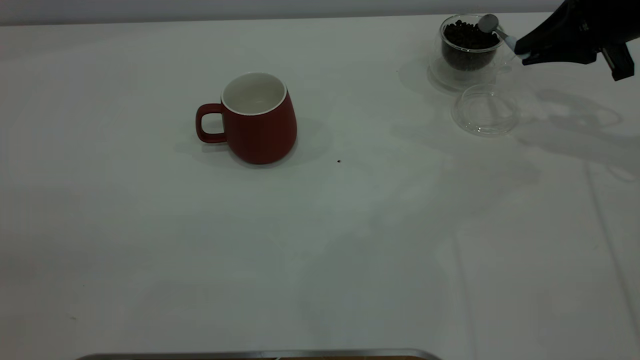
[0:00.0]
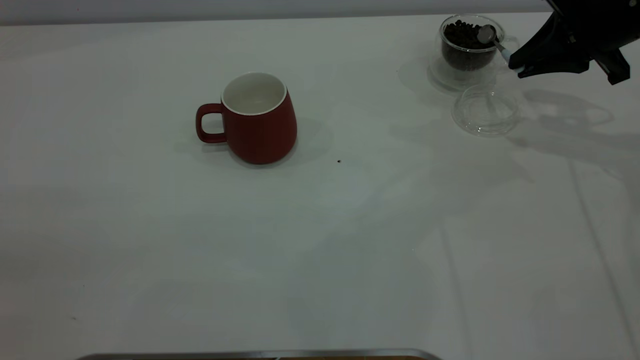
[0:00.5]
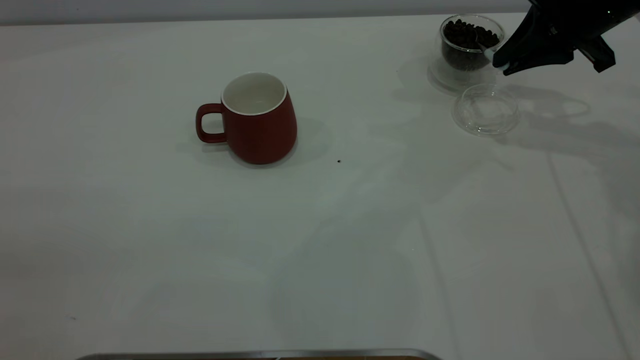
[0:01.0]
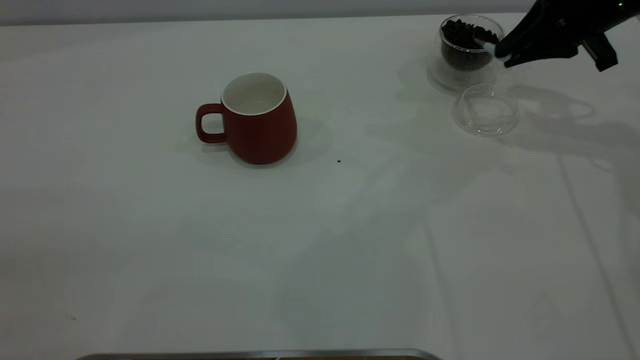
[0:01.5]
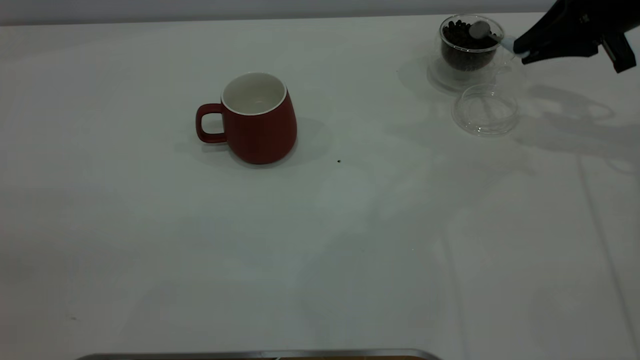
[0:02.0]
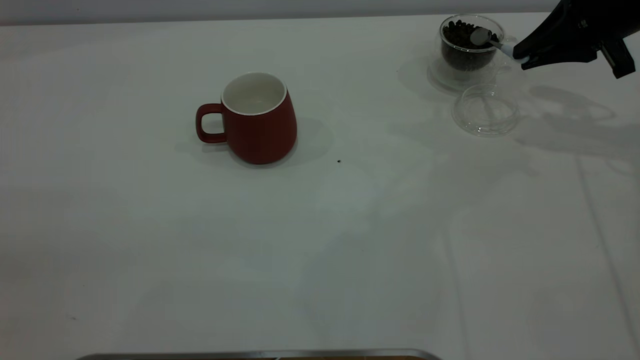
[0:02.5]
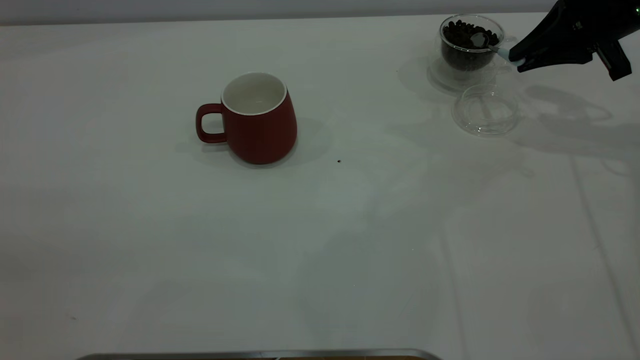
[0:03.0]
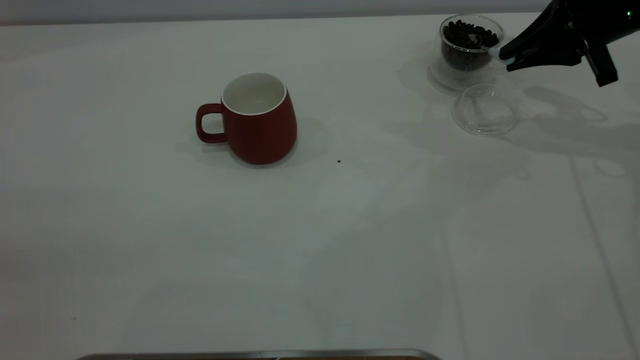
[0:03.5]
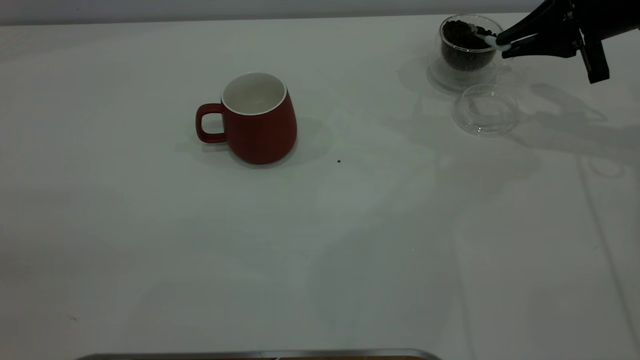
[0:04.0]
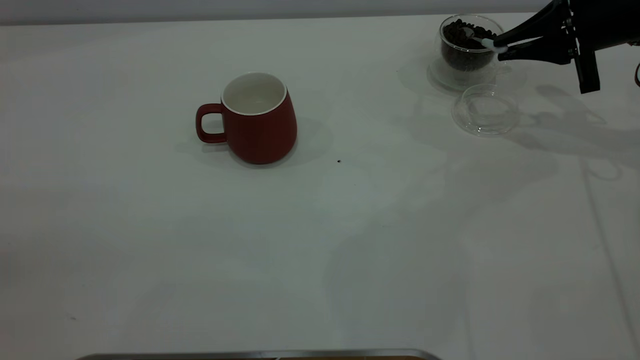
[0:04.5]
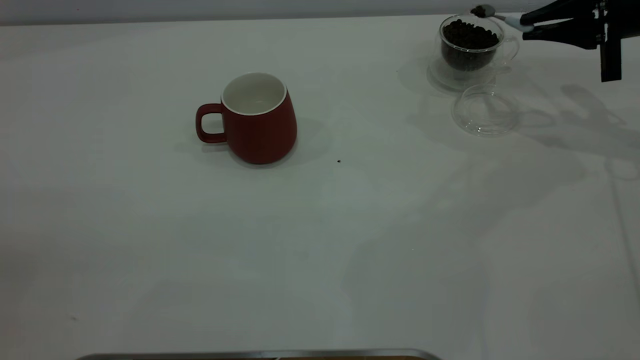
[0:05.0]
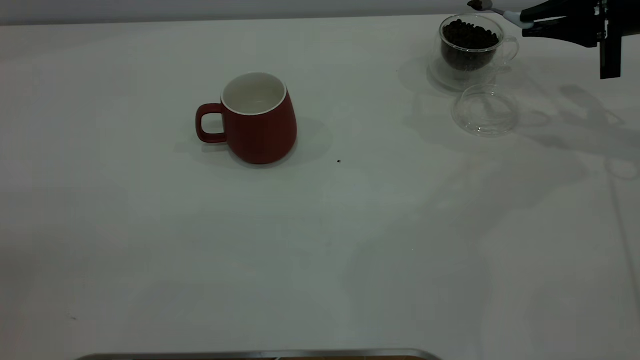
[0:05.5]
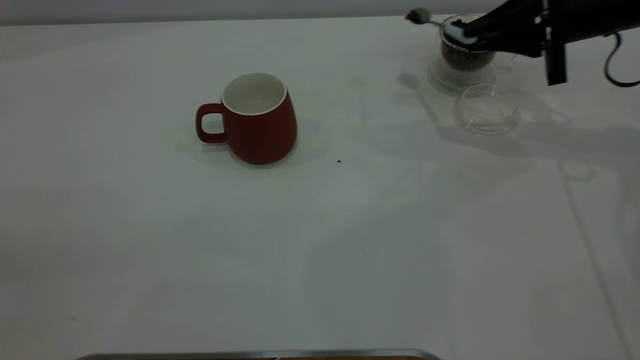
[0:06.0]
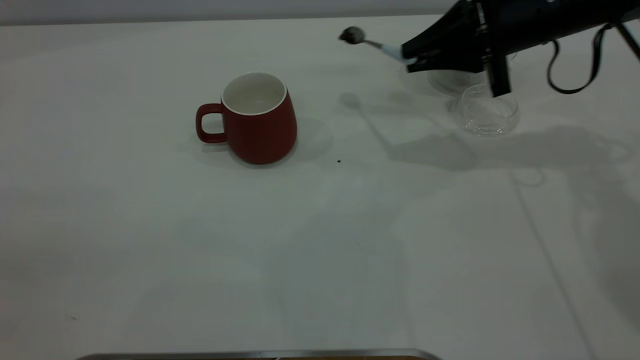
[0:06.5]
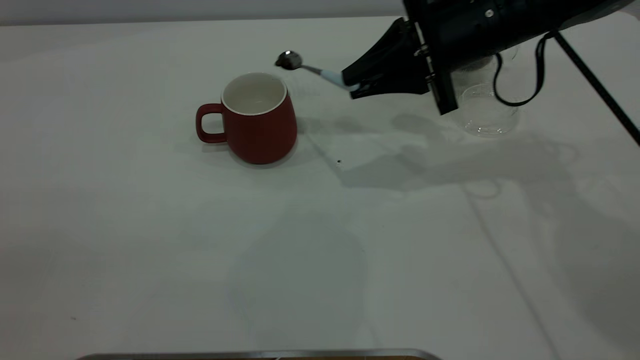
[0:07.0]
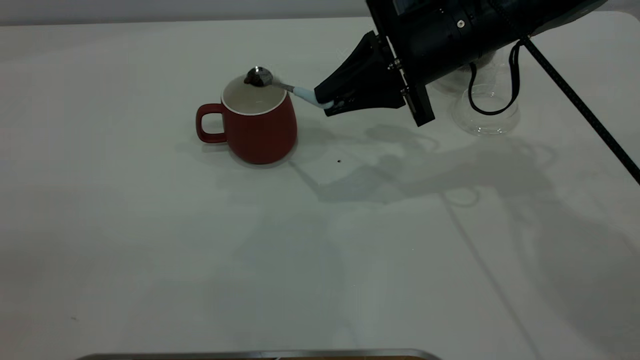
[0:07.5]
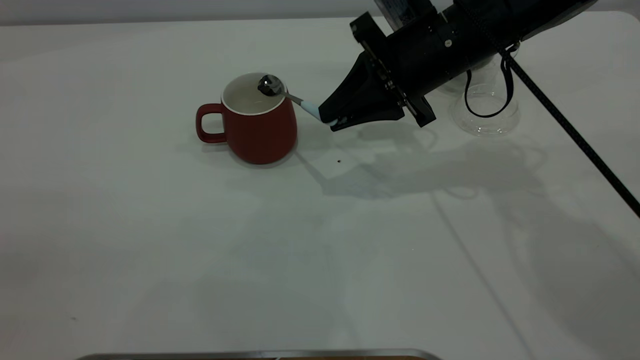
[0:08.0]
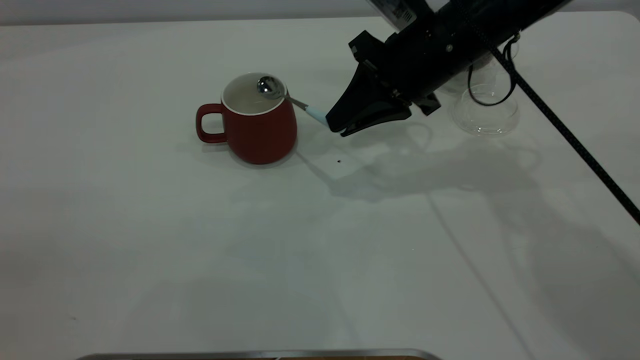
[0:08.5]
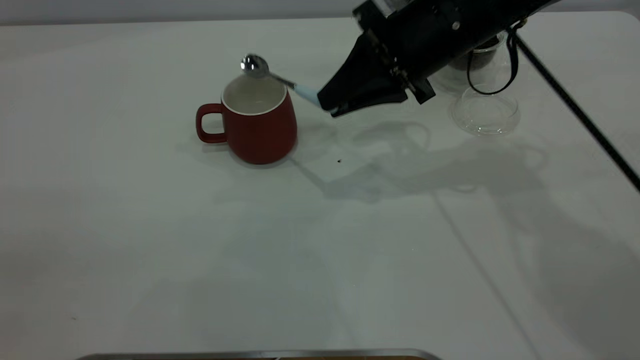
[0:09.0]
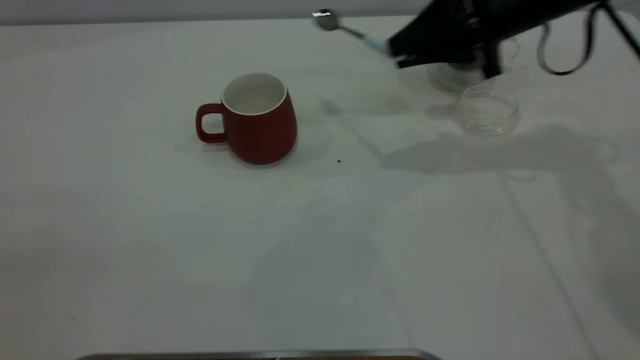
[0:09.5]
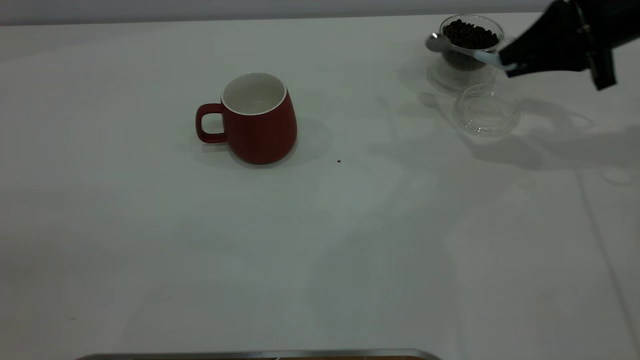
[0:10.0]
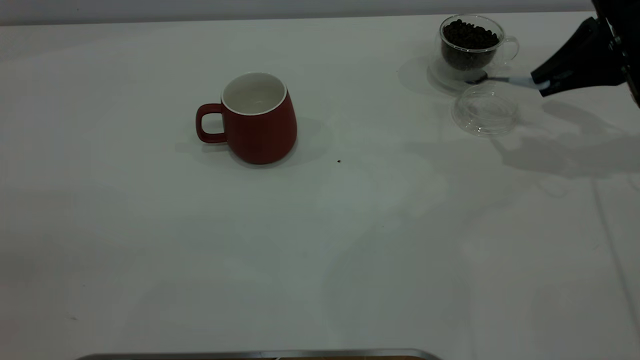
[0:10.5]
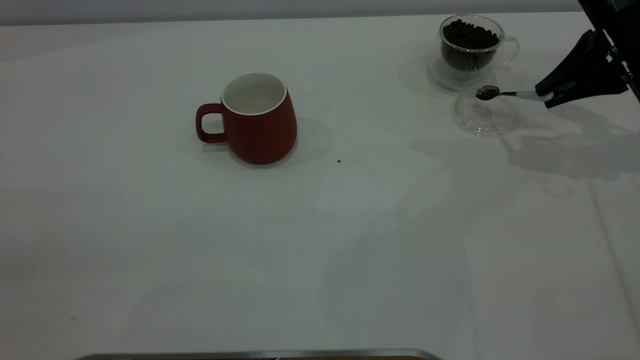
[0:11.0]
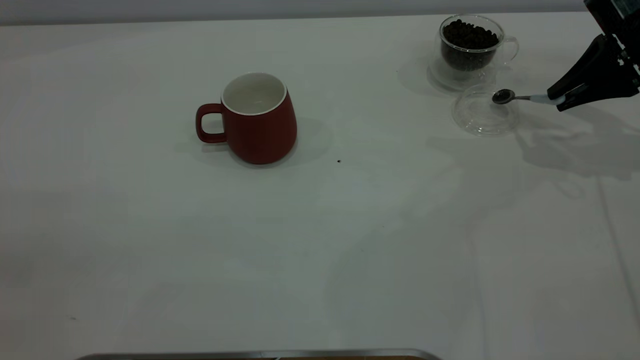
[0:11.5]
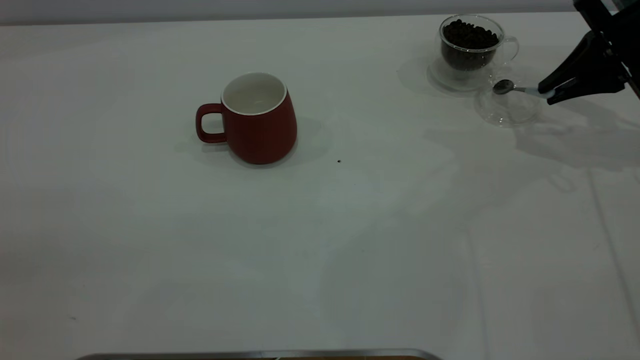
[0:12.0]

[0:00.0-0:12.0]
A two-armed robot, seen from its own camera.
Task of the whole recording: the left gripper place the red cup in the center of the table, the right gripper take the blue spoon from the cup lid and scoop out the coffee beans from the coffee cup and put them into the red cup, the right gripper put the spoon back into the cup lid.
Step, 0:00.0 to 0:08.5: Scoop a spoonful of beans into the cup.
0:00.0 to 0:04.0: The grippers move only a little.
0:04.0 to 0:06.0: There are only small adjustments of the grippers.
0:06.0 to 0:08.0: The right gripper shifts roughly 15 cm to the left.
0:08.0 to 0:10.0: The right gripper shifts about 20 cm to the right.

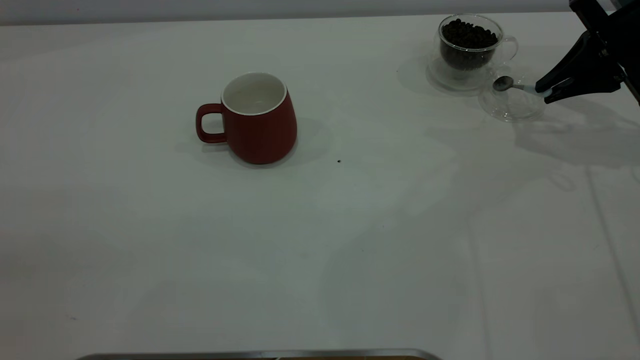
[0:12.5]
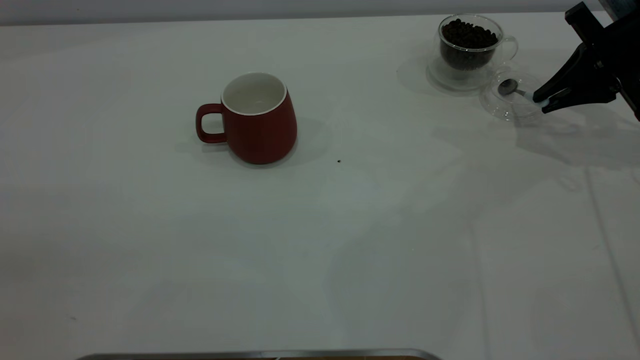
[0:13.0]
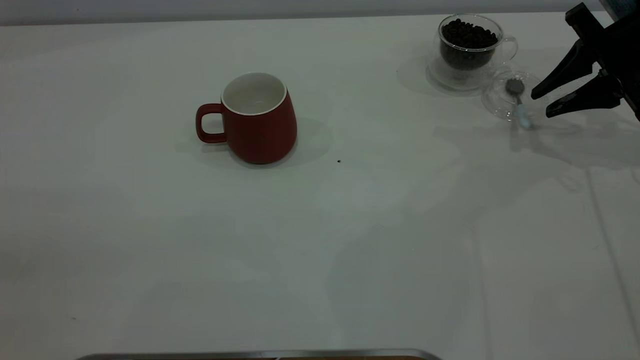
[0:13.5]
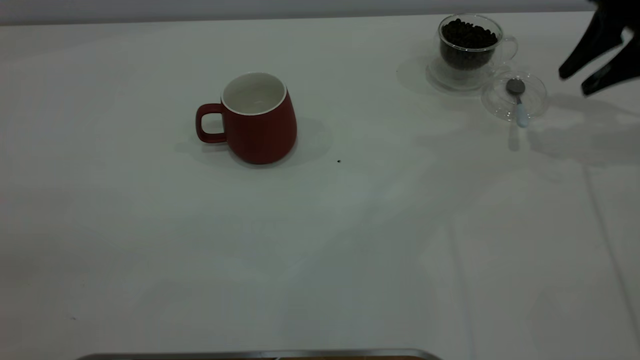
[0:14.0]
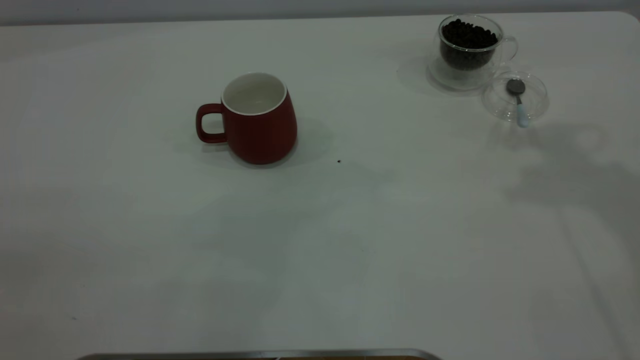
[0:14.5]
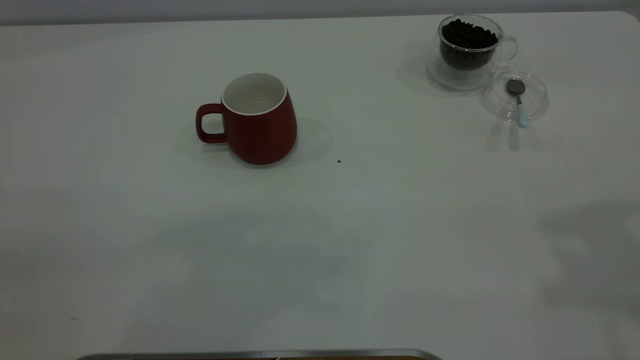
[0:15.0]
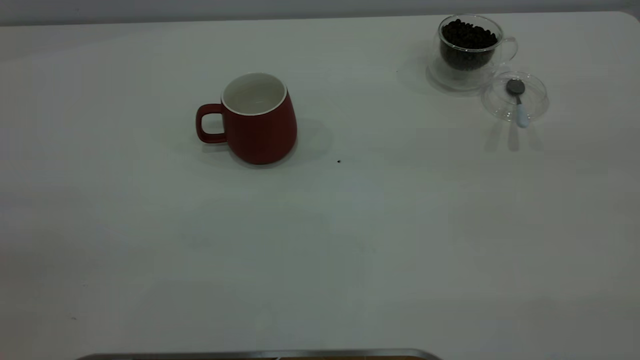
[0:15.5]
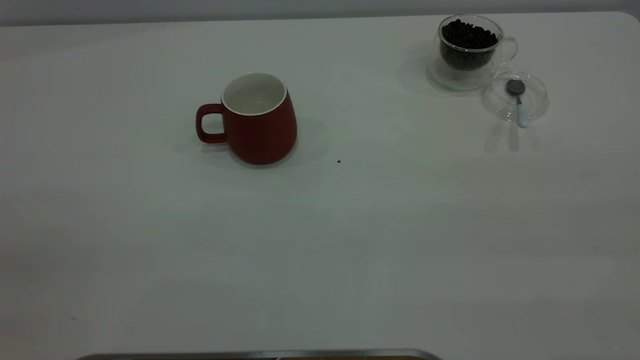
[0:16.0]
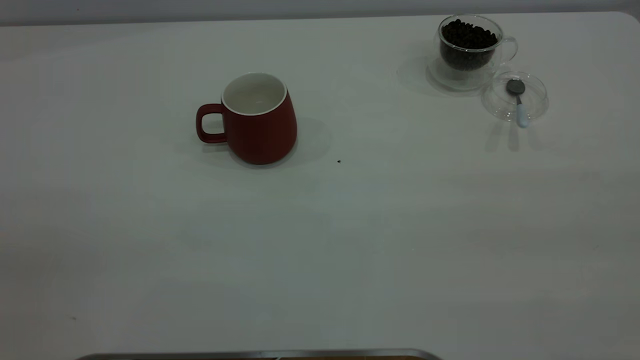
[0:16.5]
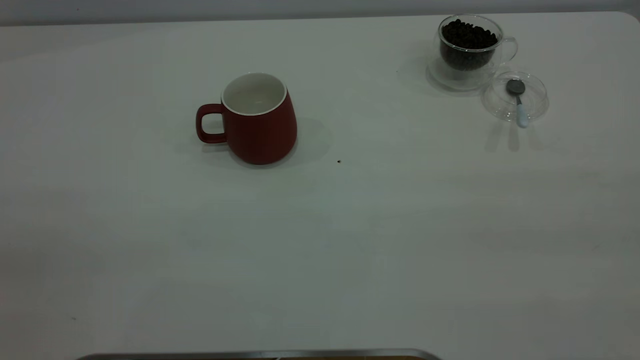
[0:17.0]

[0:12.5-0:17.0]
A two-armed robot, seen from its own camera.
Task of the whole recording: the left gripper place the red cup in the center of the table, the right gripper take the blue spoon from the cup lid and scoop out the coffee beans from the coffee cup and put them into the red cup, the right gripper put the spoon back into the cup lid.
0:12.5 to 0:14.5: The right gripper heads upward, covering about 25 cm, and opens its fingers.
